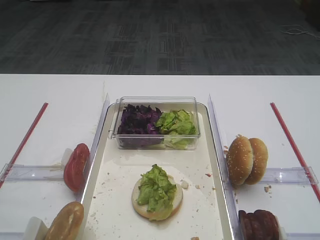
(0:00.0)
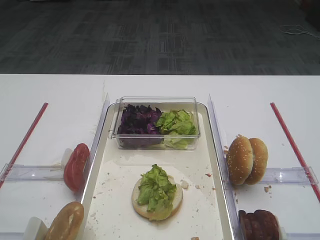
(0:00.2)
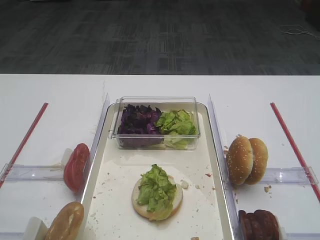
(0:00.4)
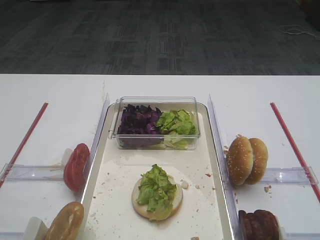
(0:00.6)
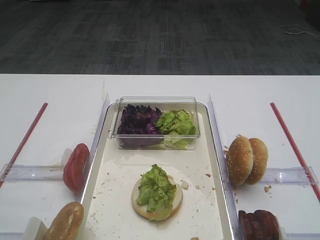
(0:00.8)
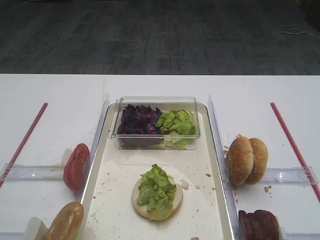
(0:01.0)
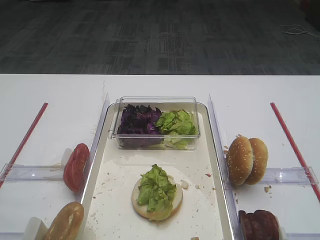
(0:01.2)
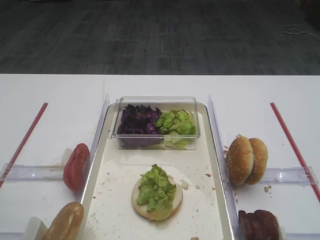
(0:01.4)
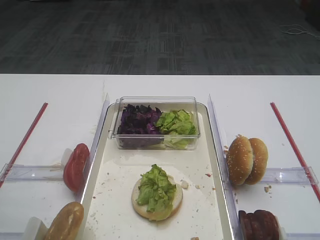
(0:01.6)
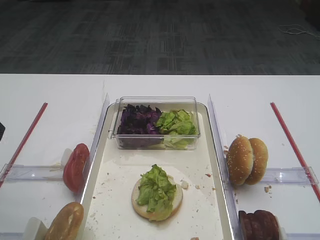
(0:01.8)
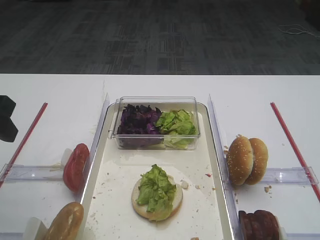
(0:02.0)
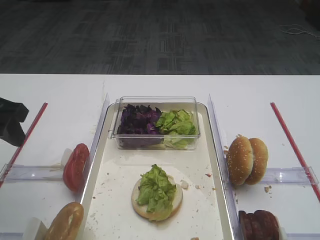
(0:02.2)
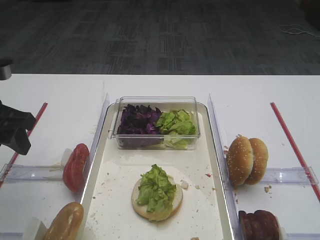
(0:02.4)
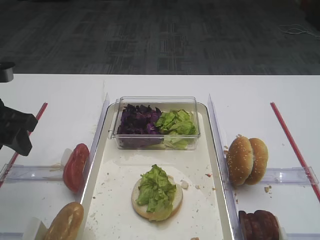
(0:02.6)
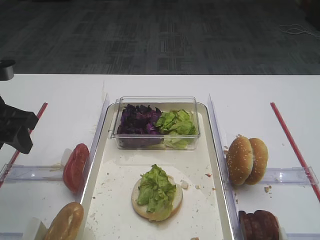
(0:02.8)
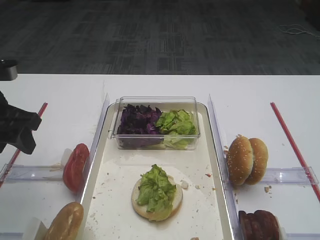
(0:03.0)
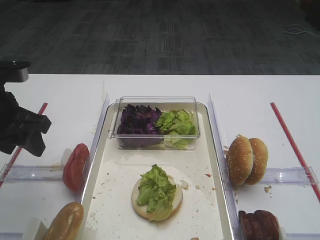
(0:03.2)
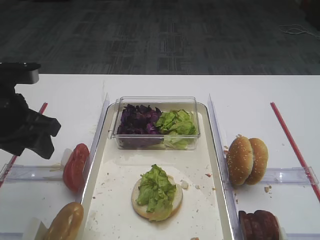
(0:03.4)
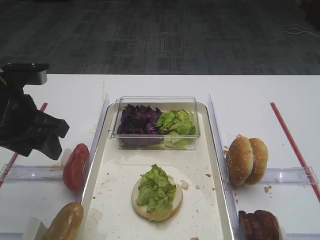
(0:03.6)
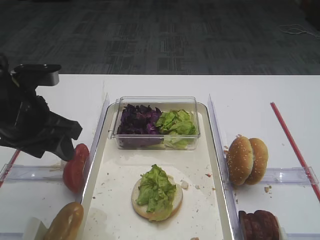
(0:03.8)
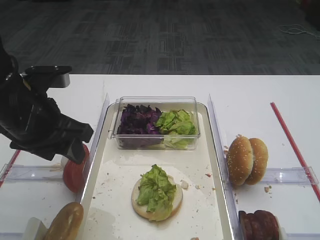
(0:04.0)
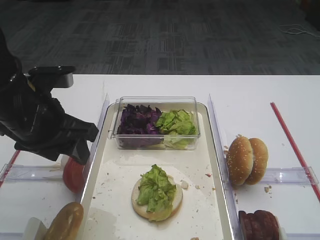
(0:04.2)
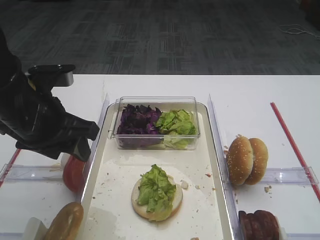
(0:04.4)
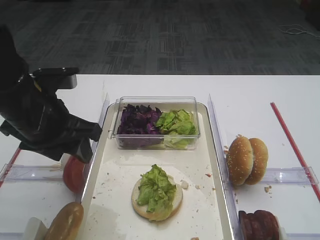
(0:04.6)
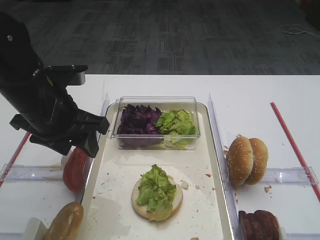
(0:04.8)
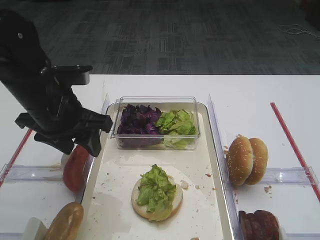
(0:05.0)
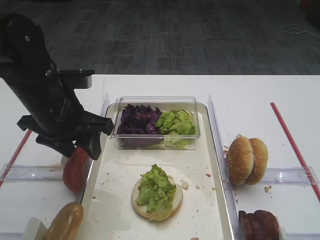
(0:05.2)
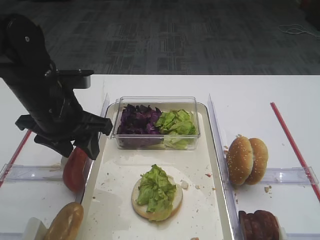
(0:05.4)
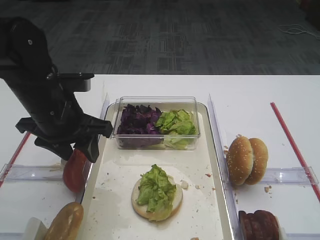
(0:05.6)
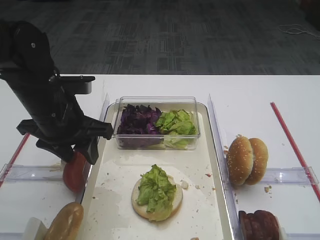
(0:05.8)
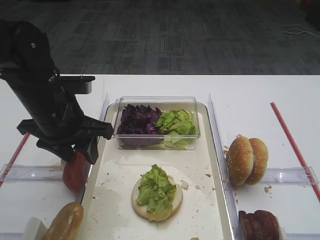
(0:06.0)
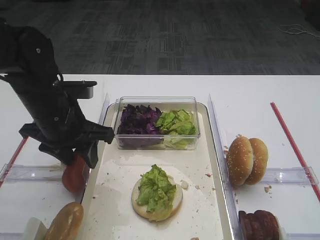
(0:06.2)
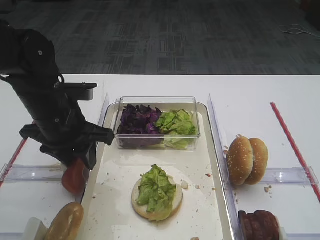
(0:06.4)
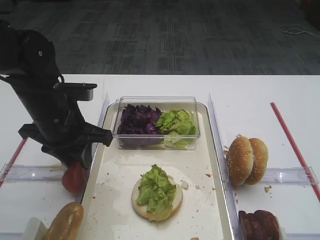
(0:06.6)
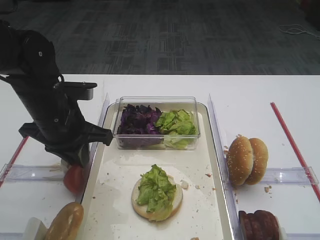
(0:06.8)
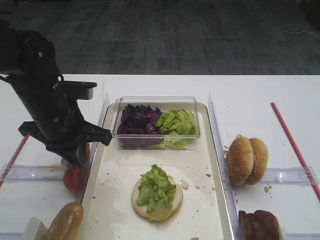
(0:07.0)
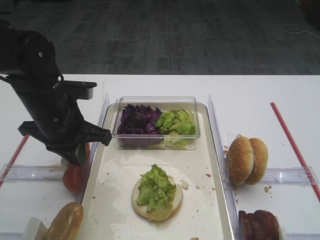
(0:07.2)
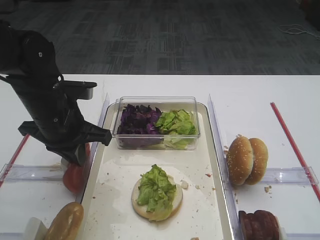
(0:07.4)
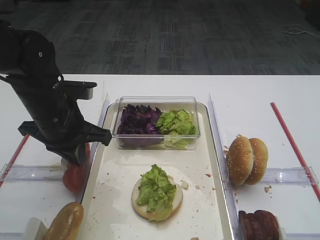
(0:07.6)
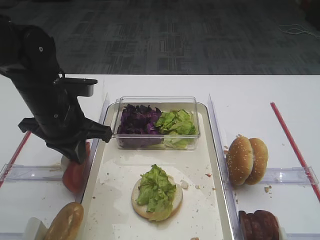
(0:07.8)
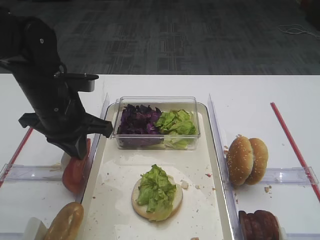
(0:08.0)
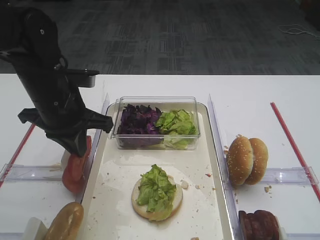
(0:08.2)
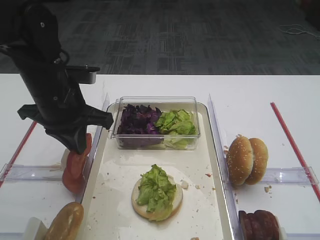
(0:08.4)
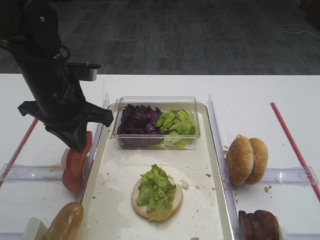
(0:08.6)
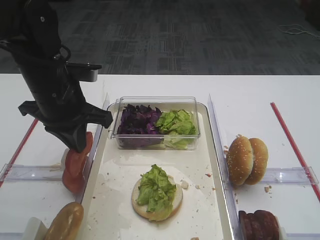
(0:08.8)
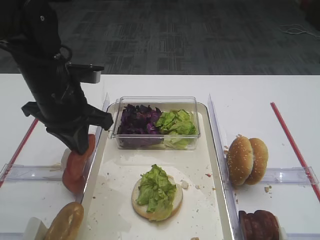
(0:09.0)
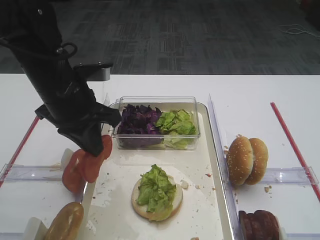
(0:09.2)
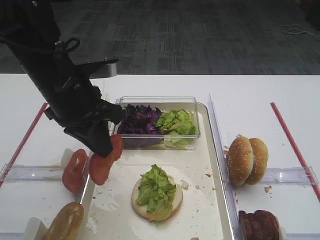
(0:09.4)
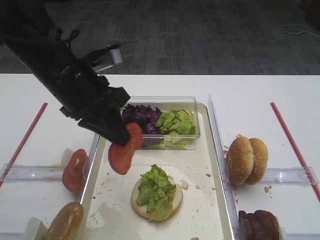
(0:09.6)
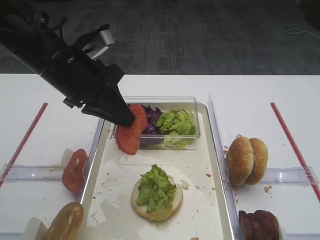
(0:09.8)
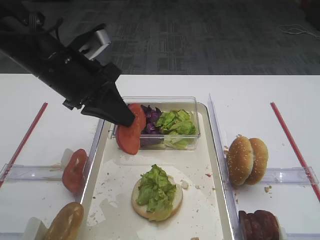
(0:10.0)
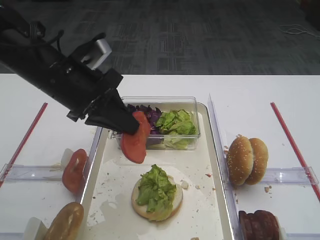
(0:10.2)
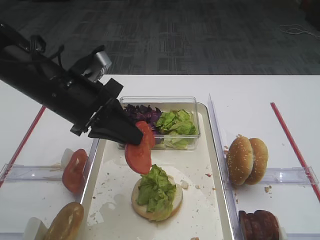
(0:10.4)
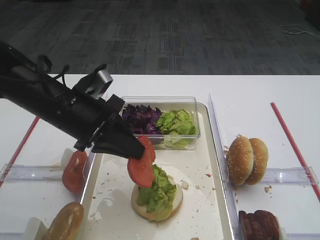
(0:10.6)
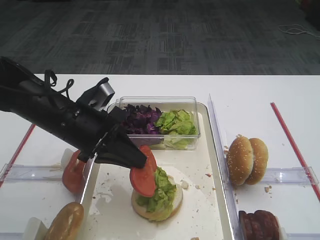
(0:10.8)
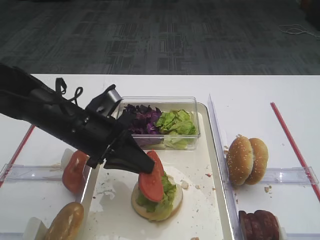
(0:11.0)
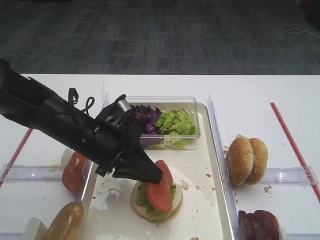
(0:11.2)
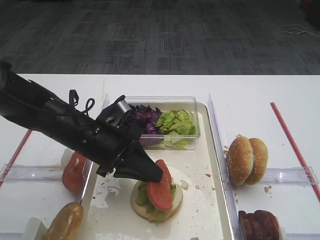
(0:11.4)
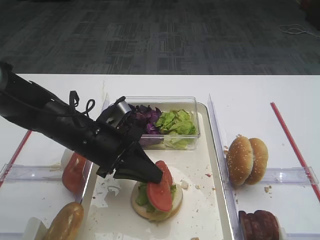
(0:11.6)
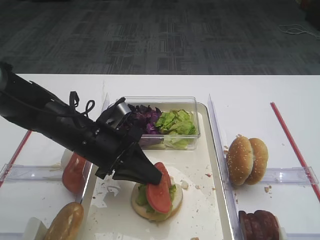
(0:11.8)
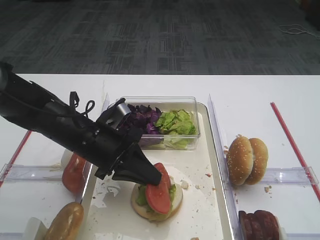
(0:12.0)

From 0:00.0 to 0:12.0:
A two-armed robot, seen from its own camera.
Step, from 0:00.0 to 0:08.4: Pick up the tomato slice with the left gripper.
From 0:01.6 to 0:03.0: The left gripper moves forward and downward, roughly 15 cm.
From 0:03.0 to 0:04.4: The left gripper heads to the right, covering about 10 cm.
From 0:04.4 to 0:06.0: The left gripper changes place by approximately 5 cm.
From 0:06.0 to 0:07.6: The left gripper closes up.
From 0:07.6 to 0:09.0: The grippers stay close to where they were, moving slightly.
From 0:10.4 to 0:12.0: The left gripper goes about 10 cm downward.

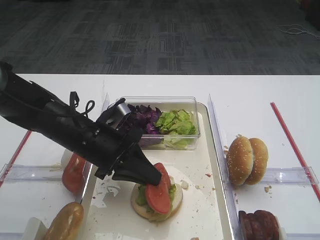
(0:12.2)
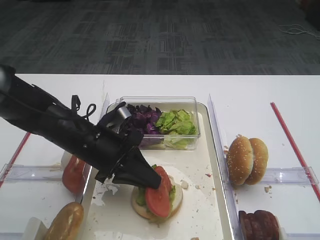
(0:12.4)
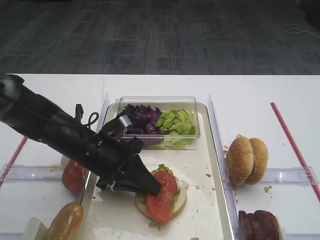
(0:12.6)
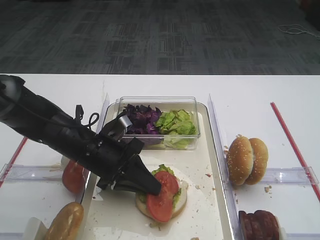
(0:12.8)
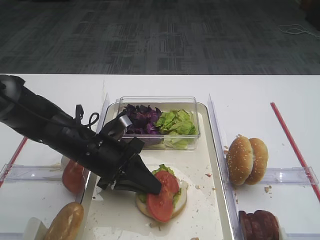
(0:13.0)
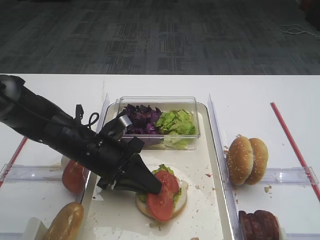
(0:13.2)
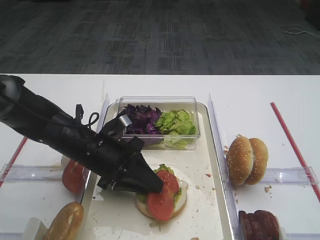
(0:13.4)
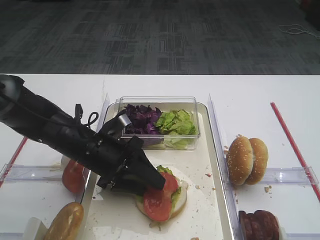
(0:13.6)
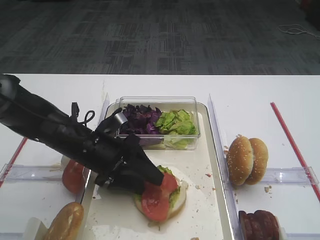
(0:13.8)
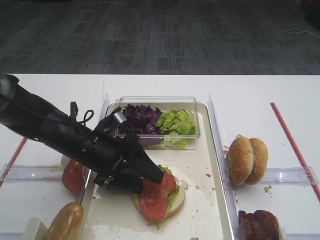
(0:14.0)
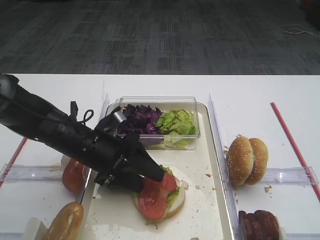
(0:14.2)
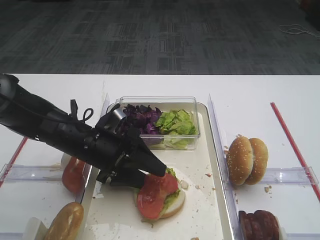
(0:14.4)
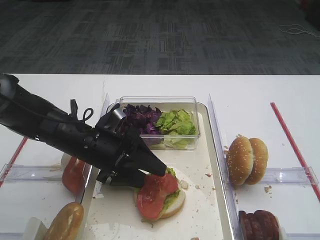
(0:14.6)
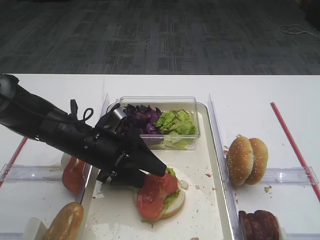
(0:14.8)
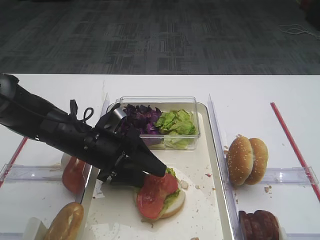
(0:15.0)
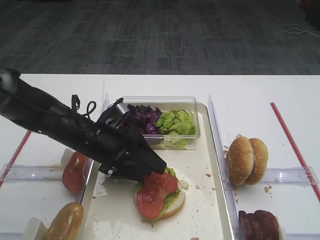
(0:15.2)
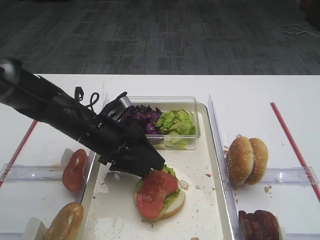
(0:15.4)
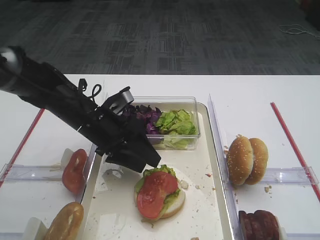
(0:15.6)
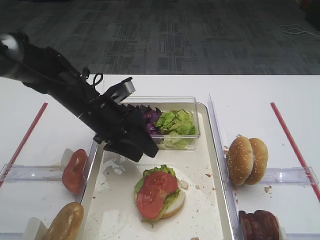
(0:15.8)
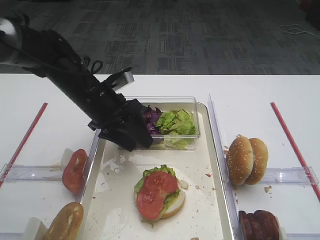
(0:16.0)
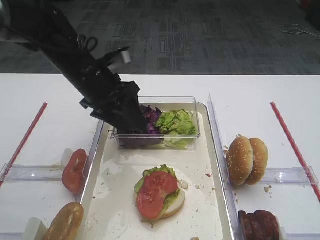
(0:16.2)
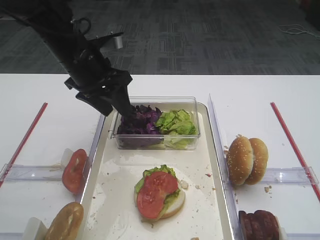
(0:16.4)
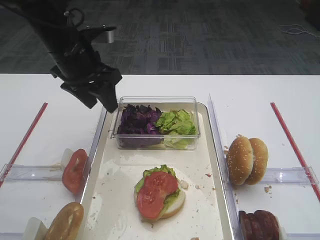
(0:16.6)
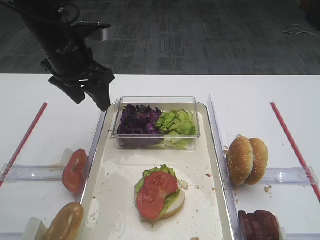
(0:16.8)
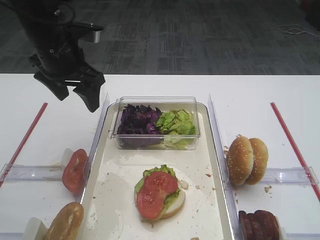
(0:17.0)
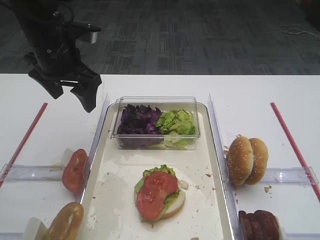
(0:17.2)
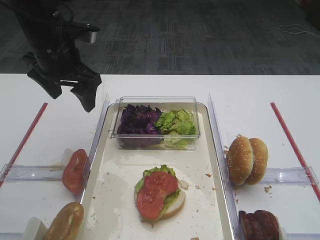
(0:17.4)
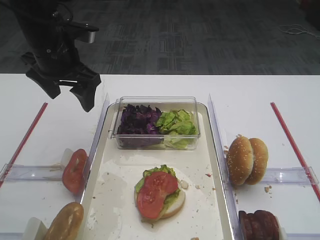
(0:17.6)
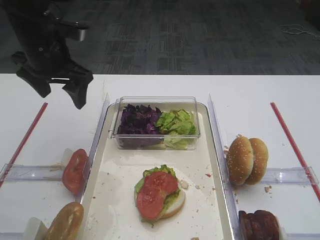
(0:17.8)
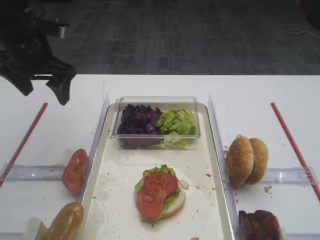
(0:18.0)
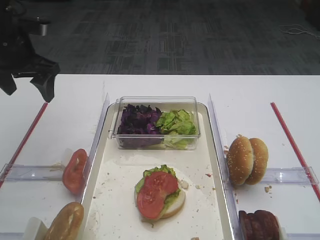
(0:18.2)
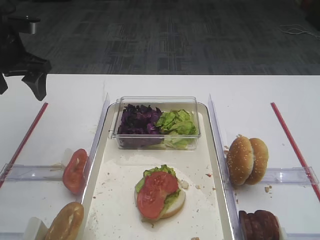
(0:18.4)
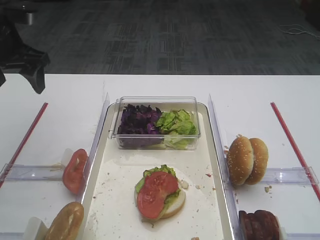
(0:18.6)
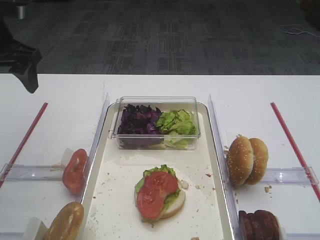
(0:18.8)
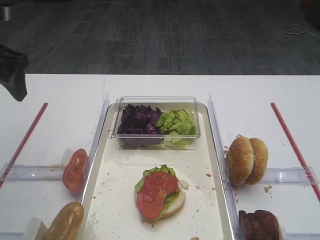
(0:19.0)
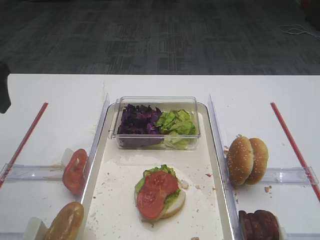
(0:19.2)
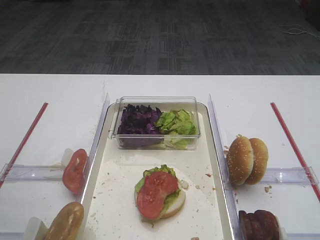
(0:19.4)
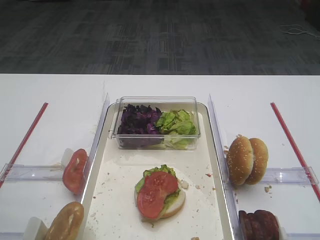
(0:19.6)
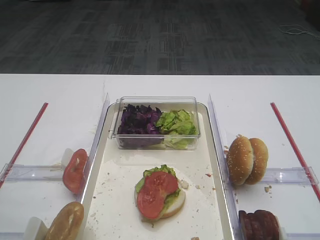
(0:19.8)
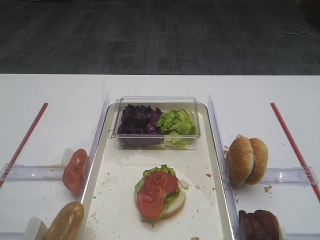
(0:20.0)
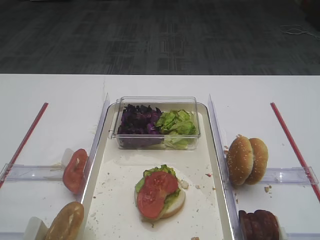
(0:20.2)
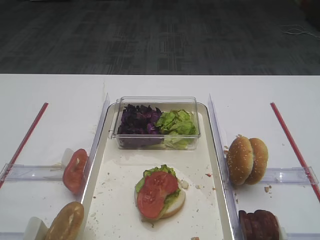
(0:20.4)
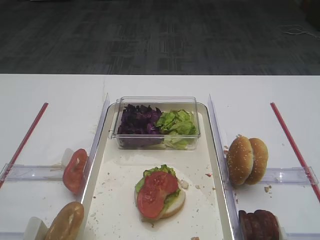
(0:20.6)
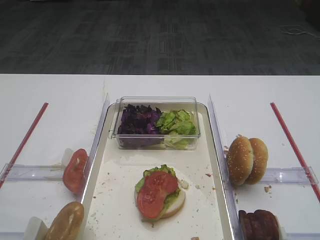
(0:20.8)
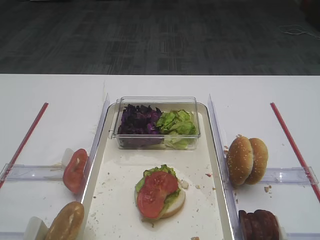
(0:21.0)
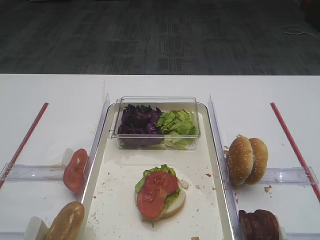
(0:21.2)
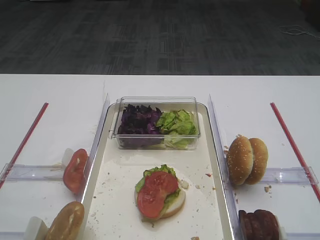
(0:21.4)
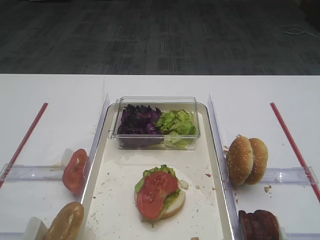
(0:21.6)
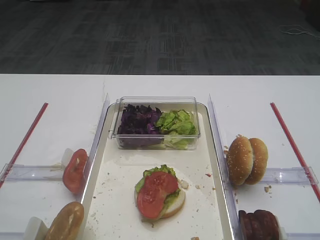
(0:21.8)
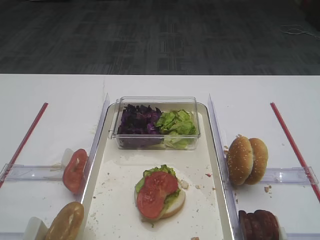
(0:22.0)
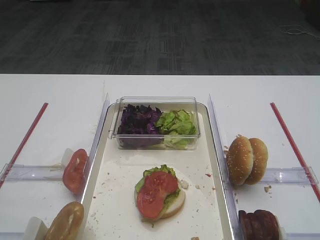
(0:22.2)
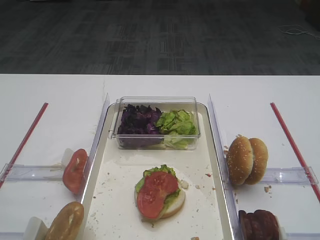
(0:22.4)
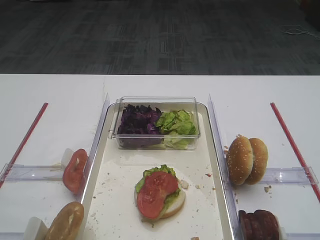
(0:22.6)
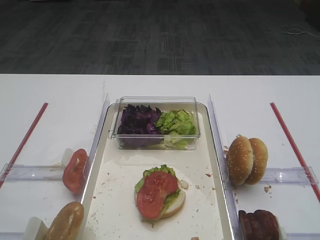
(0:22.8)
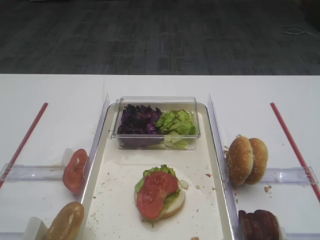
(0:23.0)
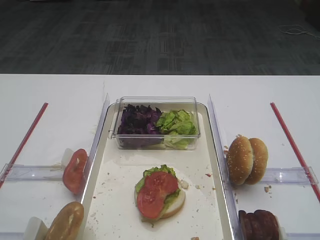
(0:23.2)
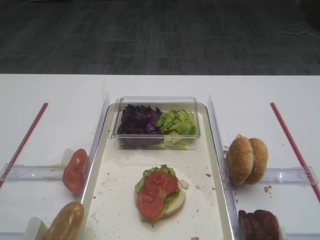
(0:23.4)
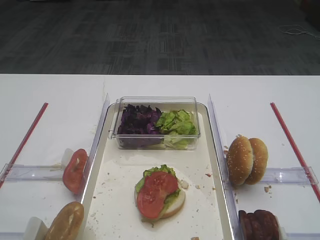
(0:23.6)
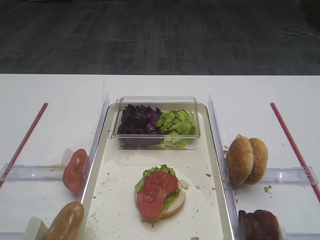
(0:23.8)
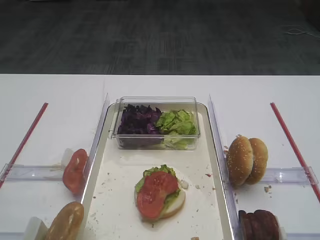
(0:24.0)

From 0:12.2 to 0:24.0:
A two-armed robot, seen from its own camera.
Step, from 0:12.2 to 0:15.4: Place the tomato slice on the lettuce leaf with the left gripper.
From 0:12.2 to 0:13.6: The left gripper opens its fingers.
From 0:13.6 to 0:15.2: The grippers stay close to where they were, moving slightly.
From 0:15.2 to 0:16.6: The left gripper heads upward and forward, covering about 15 cm.
From 0:16.6 to 0:18.2: The left gripper is displaced to the left by some 10 cm.
From 0:18.2 to 0:19.6: The left gripper heads backward, covering roughly 25 cm.
From 0:21.0 to 0:22.6: Both grippers stay put.
From 0:22.6 to 0:24.0: Both grippers stay about where they are.
